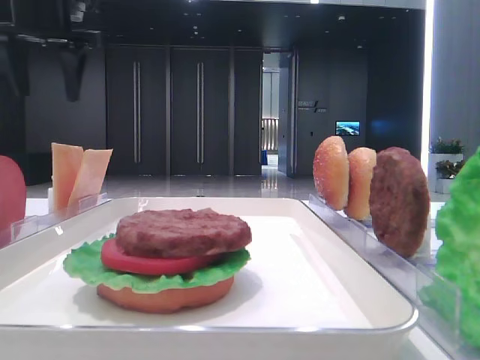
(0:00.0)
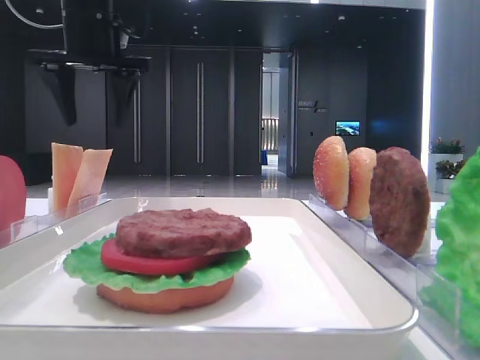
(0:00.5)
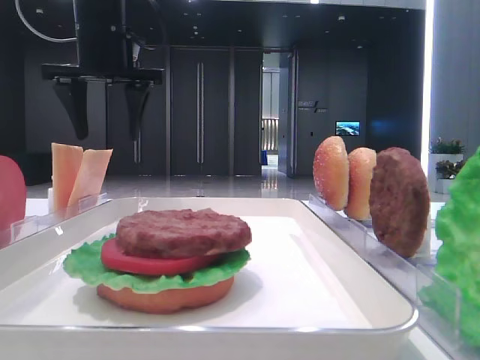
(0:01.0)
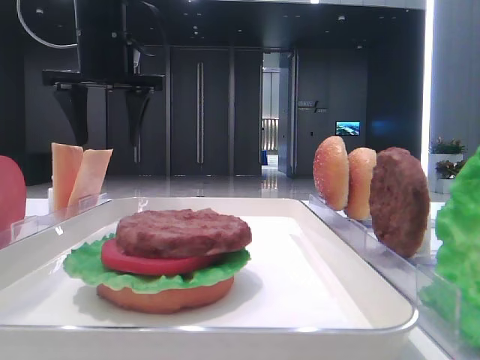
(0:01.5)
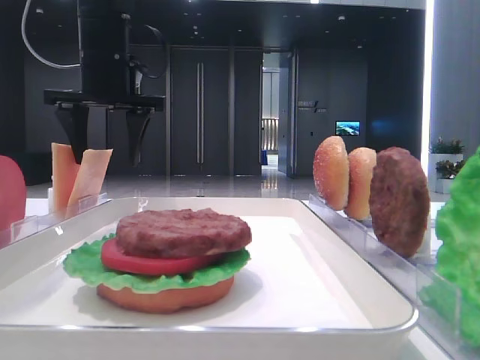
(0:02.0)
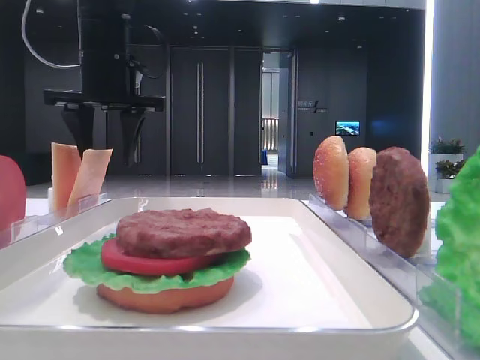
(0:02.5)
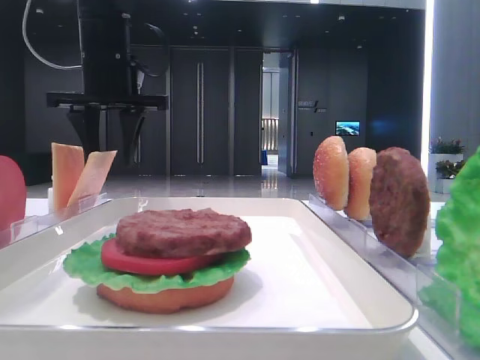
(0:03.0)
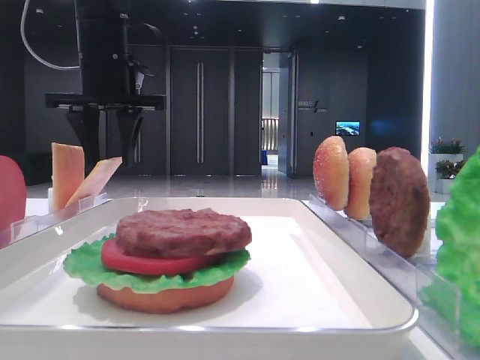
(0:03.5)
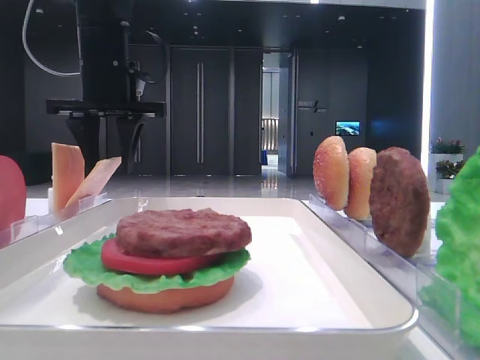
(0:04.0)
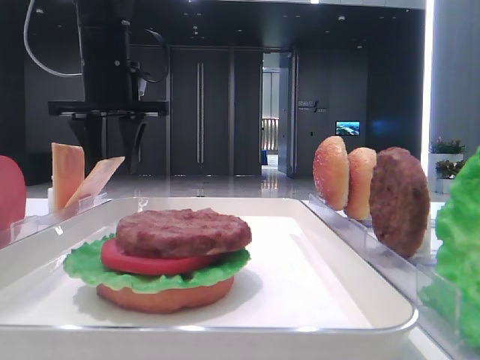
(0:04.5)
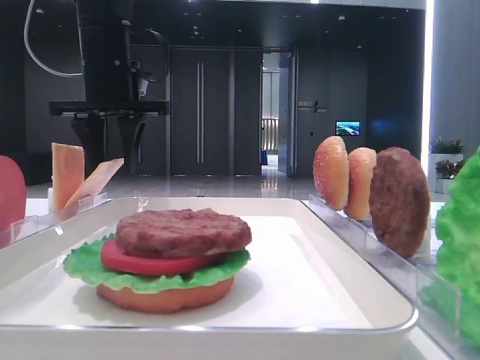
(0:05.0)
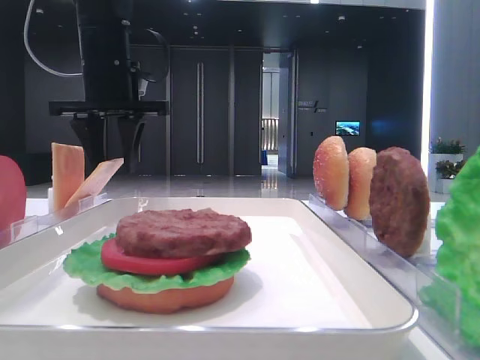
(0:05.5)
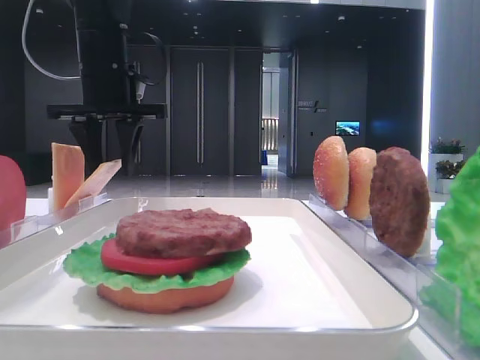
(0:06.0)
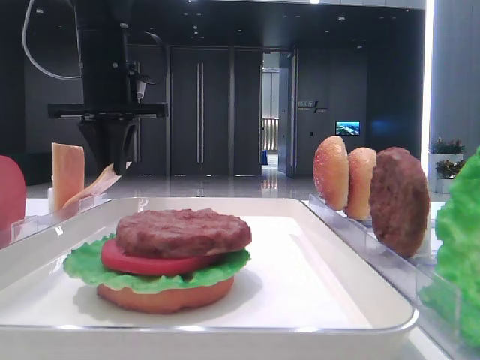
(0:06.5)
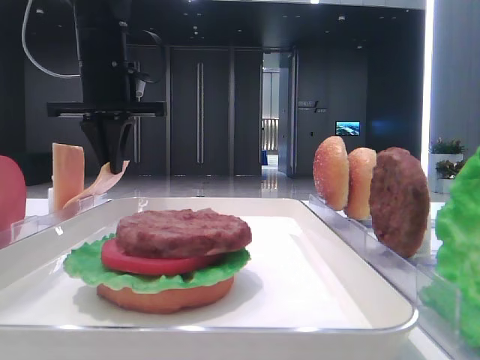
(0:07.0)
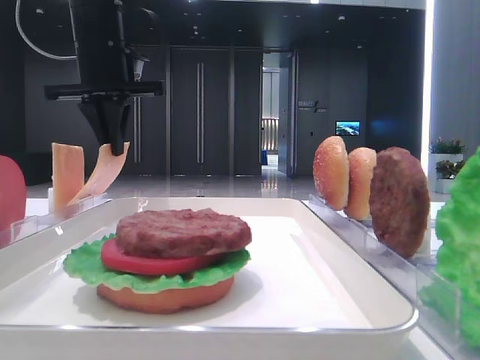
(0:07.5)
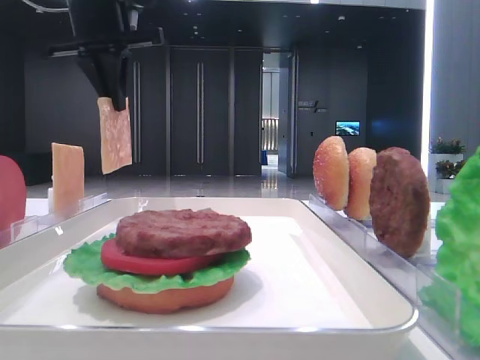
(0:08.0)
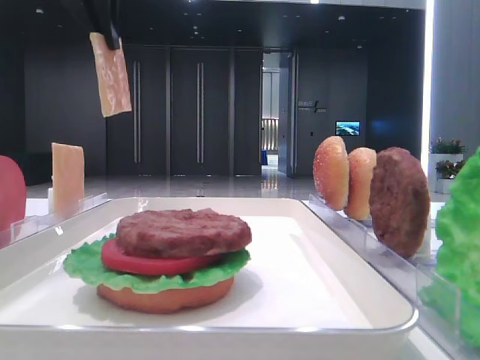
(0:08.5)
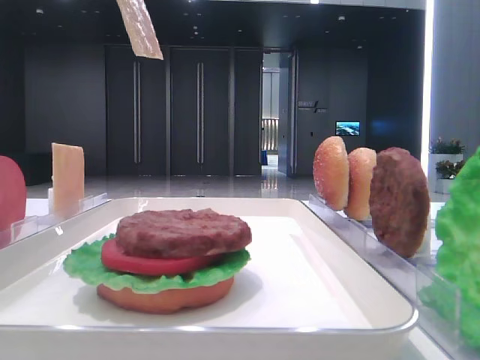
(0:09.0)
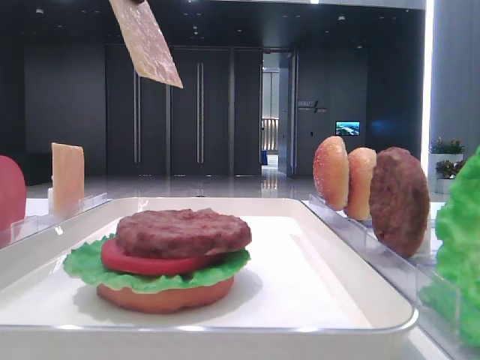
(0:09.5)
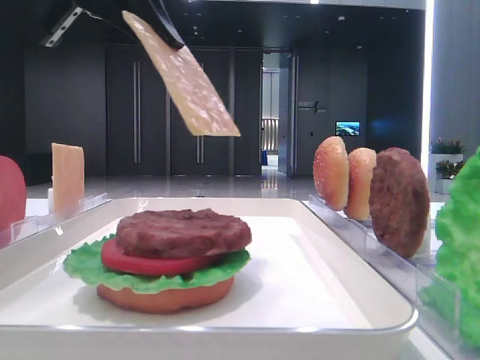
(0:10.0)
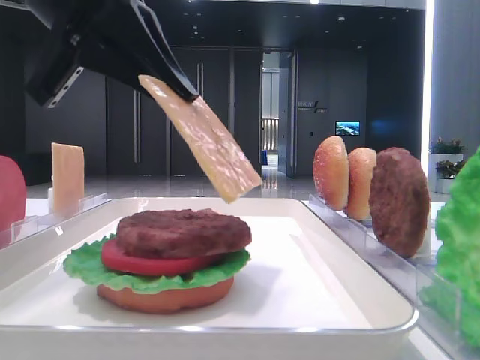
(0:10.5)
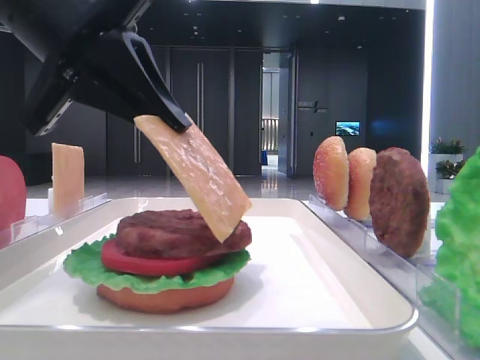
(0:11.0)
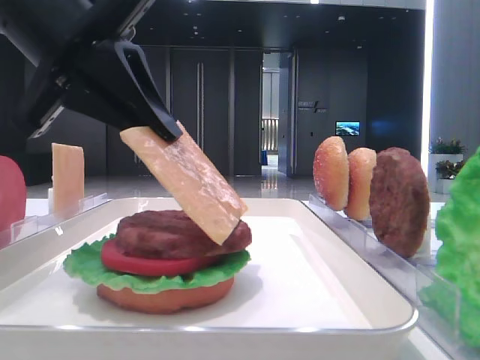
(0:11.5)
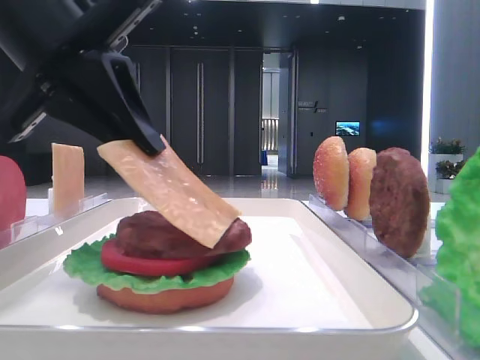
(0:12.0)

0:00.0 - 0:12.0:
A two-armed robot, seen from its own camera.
Step, 0:00.0 - 0:06.5: Pick up the cheese slice with the left hand.
0:00.0 - 0:02.0: The left gripper moves to the right and downward, some 10 cm.
0:02.0 - 0:04.0: The left gripper closes.
0:04.0 - 0:06.0: Neither gripper changes place.
0:06.0 - 0:08.0: The left gripper travels upward by roughly 5 cm, and closes up.
0:08.0 - 0:10.0: The left gripper travels backward by roughly 15 cm.
0:10.0 - 0:12.0: The left gripper moves downward, about 10 cm.

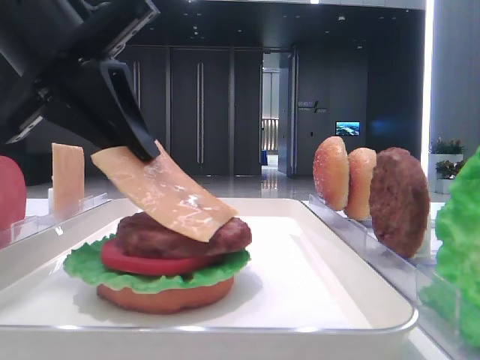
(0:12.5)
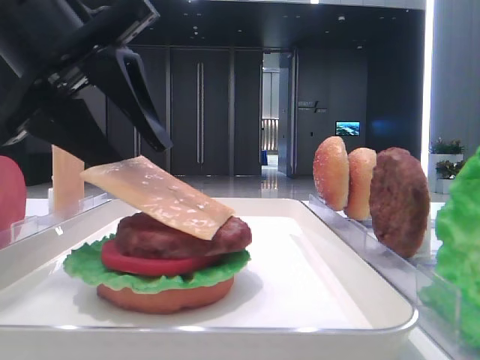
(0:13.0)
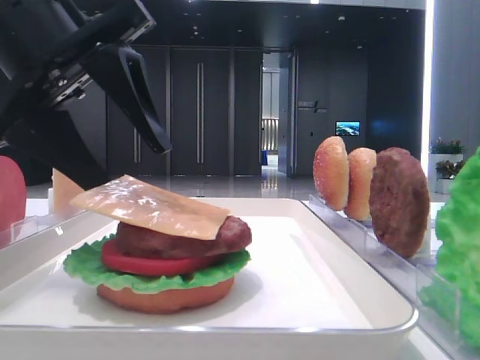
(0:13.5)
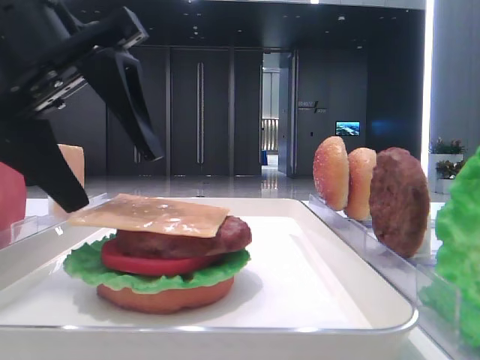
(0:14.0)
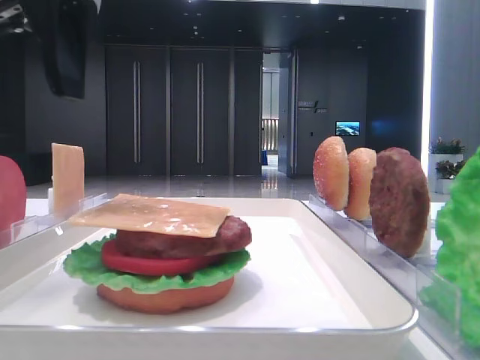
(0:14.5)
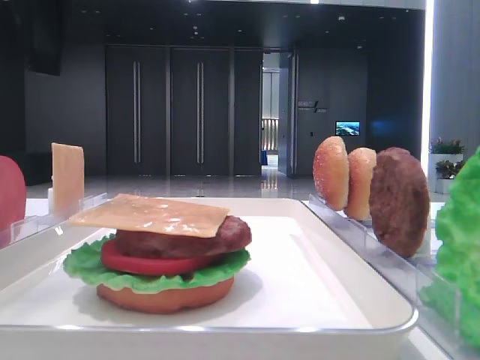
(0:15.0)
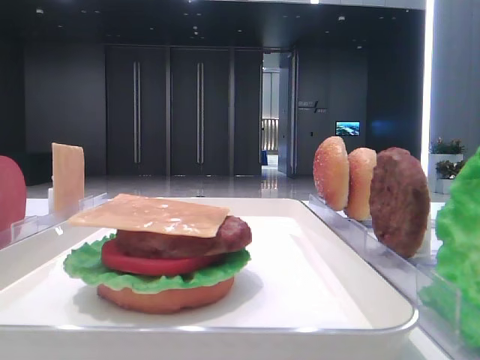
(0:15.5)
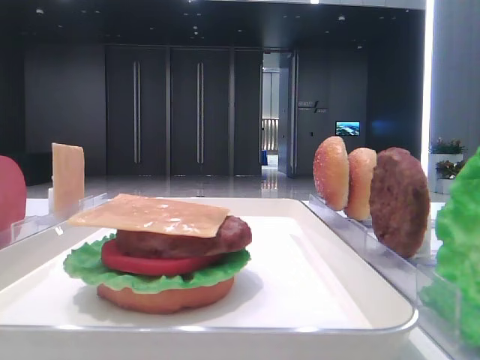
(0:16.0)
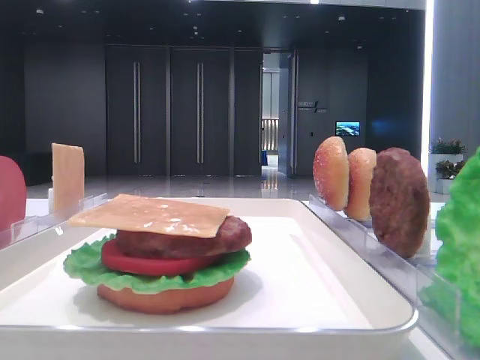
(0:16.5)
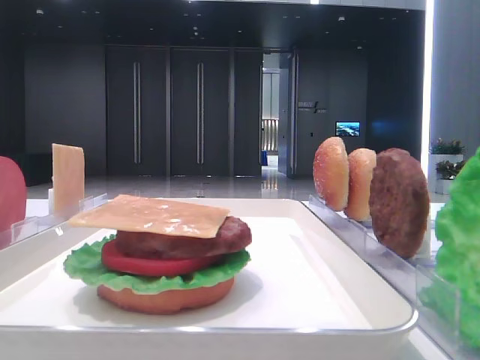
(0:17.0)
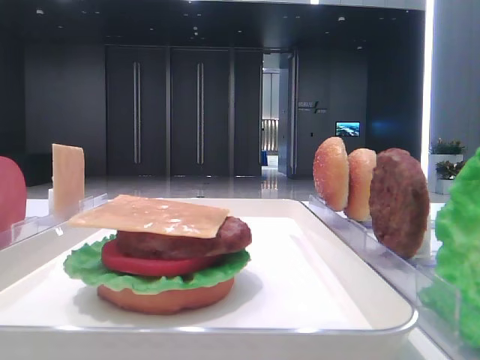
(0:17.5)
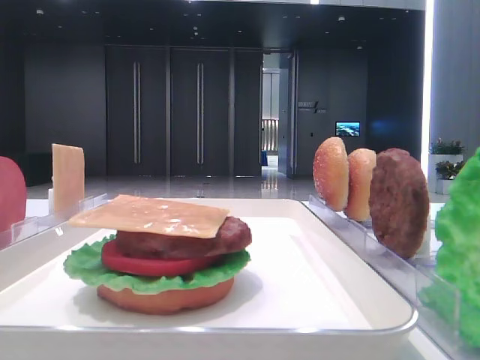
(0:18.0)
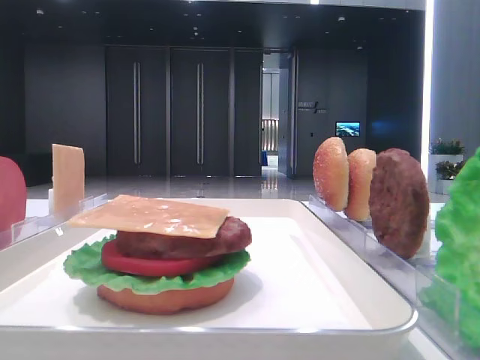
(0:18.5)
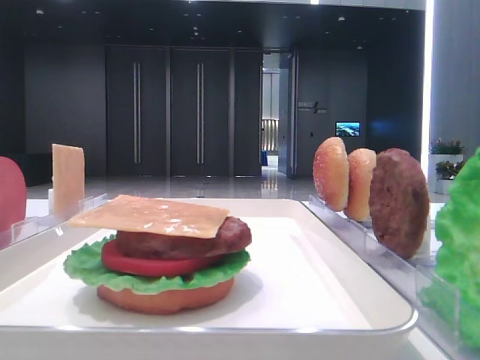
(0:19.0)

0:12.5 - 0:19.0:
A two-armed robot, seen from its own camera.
0:12.5 - 0:14.5: The left gripper goes some 5 cm upward, and opens up.
0:14.5 - 0:17.0: The left gripper heads backward, to the left and upward, covering roughly 25 cm.

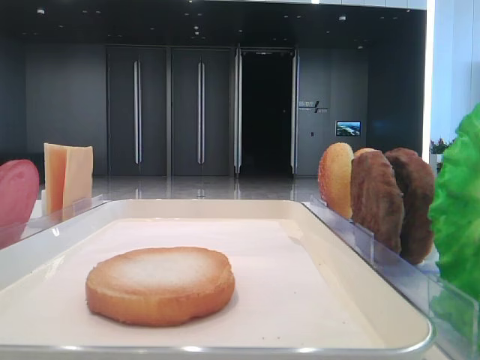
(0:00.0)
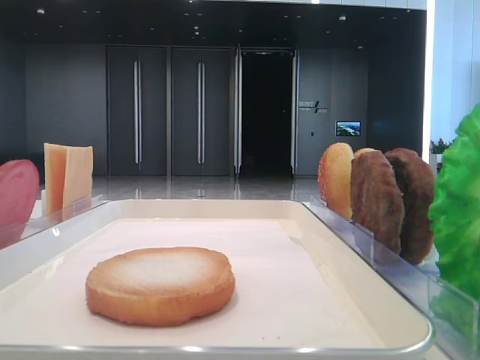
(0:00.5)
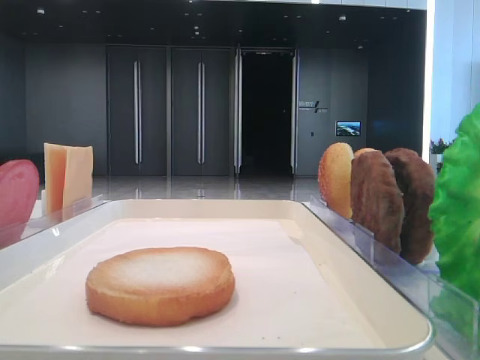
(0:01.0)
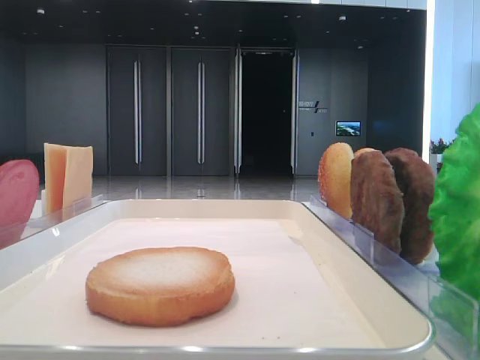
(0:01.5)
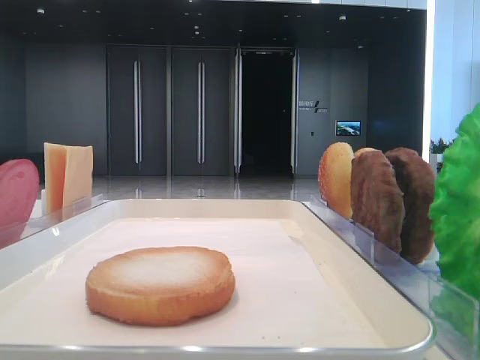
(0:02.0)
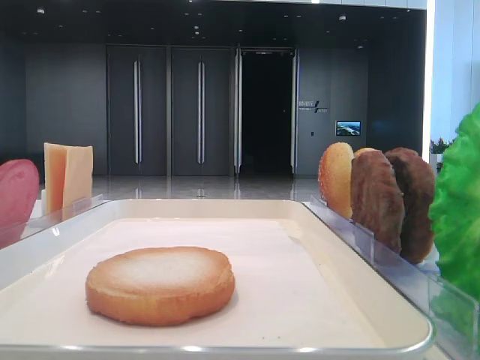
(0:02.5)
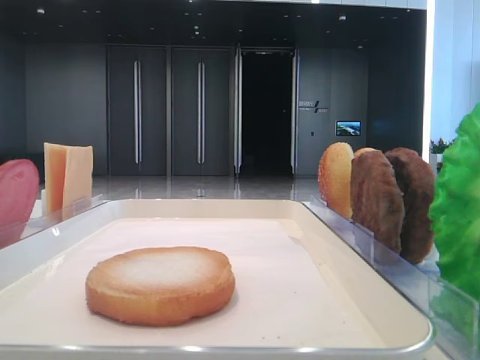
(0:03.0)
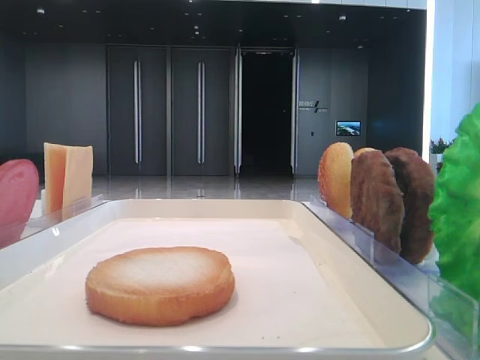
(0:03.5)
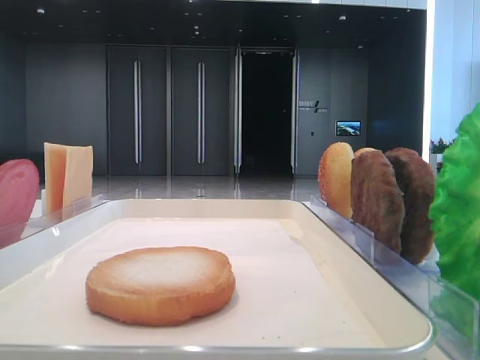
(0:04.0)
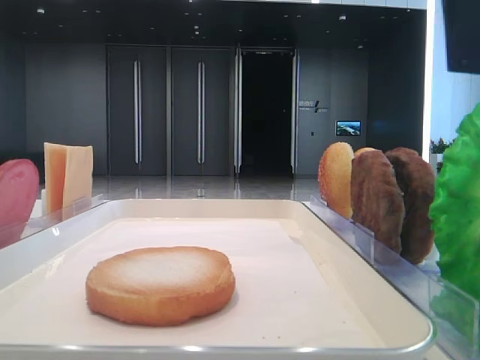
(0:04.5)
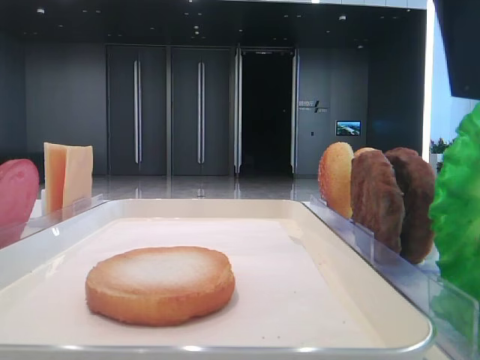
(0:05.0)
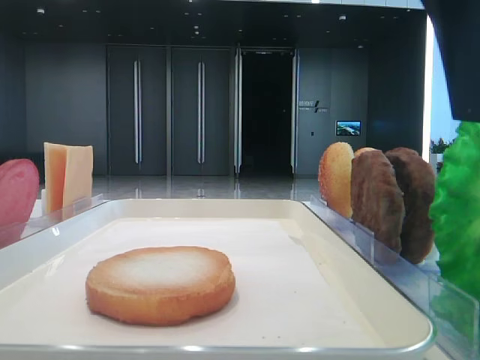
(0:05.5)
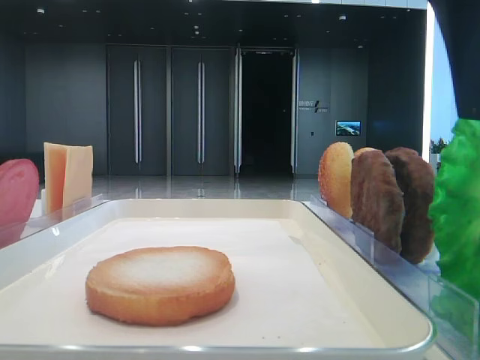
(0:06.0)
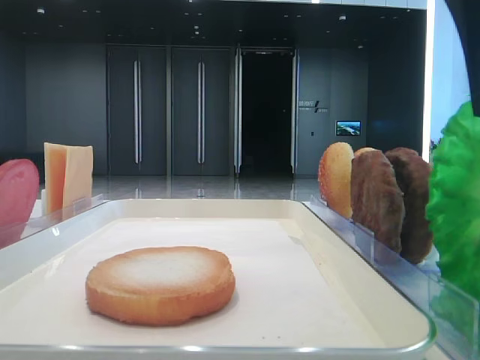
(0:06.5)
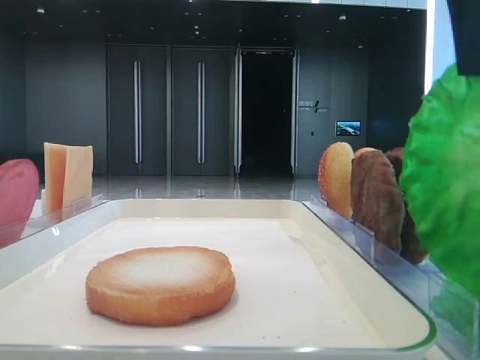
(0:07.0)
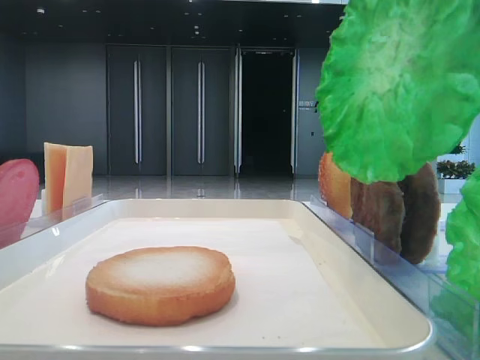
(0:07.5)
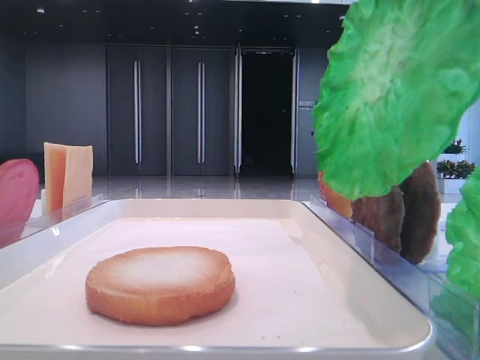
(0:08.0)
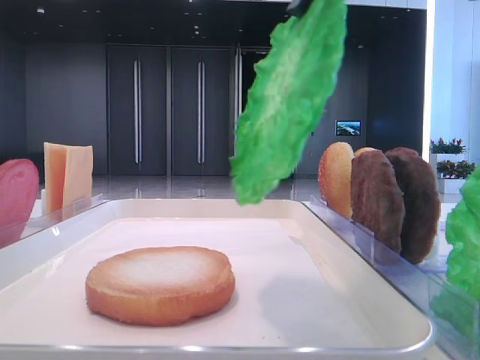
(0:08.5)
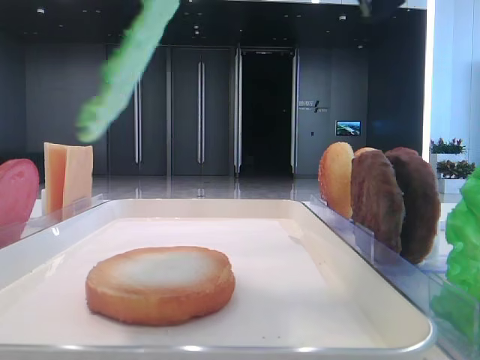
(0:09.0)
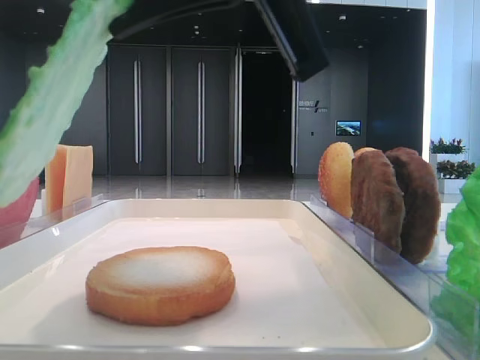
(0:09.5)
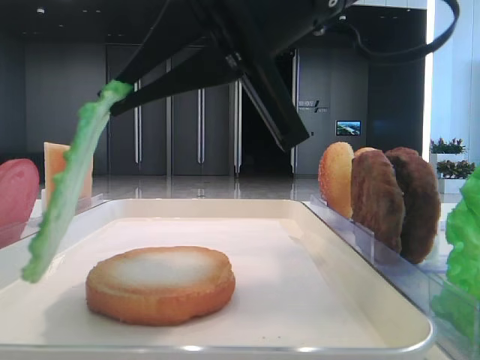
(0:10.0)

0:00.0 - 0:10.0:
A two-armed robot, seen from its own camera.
Step, 0:00.0 - 0:06.5: Grab the lettuce leaf with the right hand.
0:04.0 - 0:06.0: The right gripper ends up about 10 cm from where it was, and closes its fingers.
0:06.0 - 0:08.0: The right gripper heads upward, covering roughly 5 cm, and closes its fingers.
0:08.0 - 0:10.0: The right gripper travels downward, to the left and forward by roughly 15 cm.
